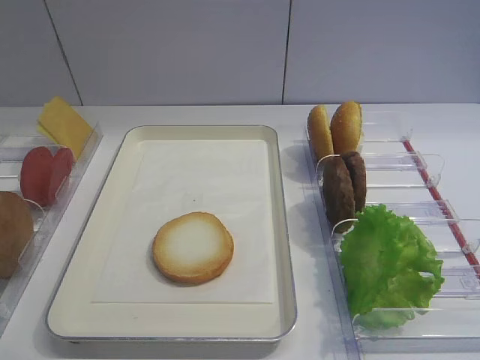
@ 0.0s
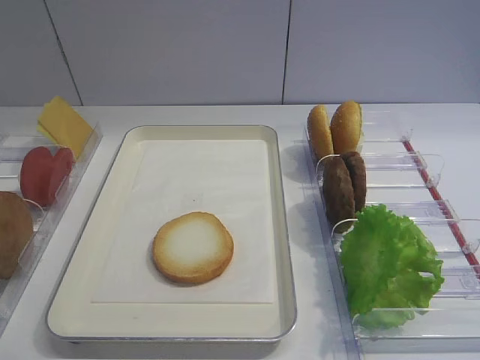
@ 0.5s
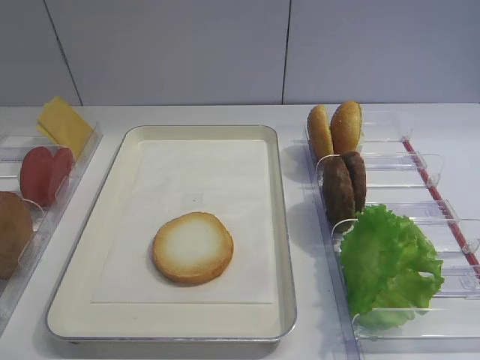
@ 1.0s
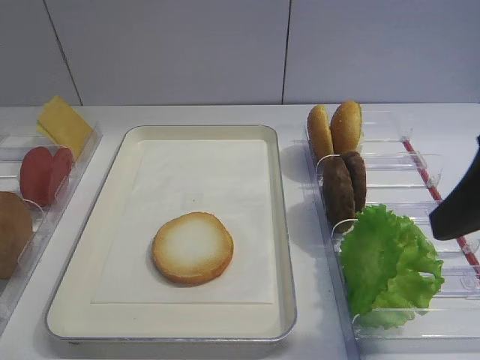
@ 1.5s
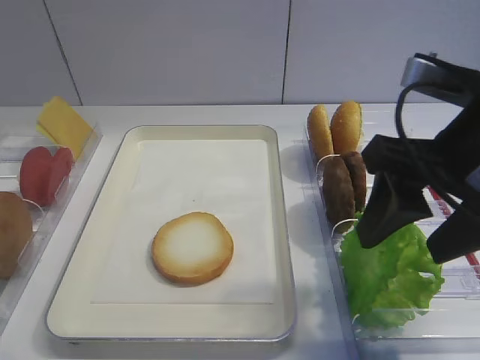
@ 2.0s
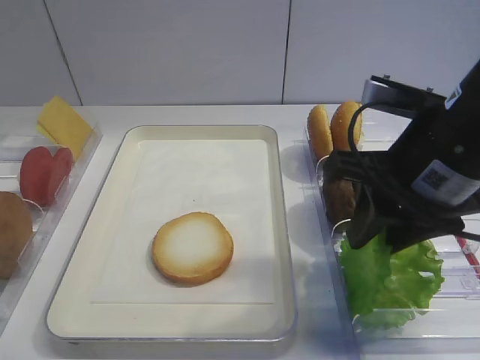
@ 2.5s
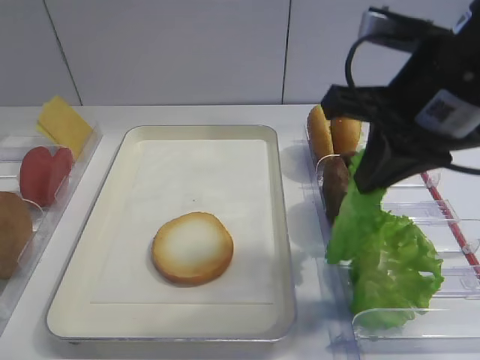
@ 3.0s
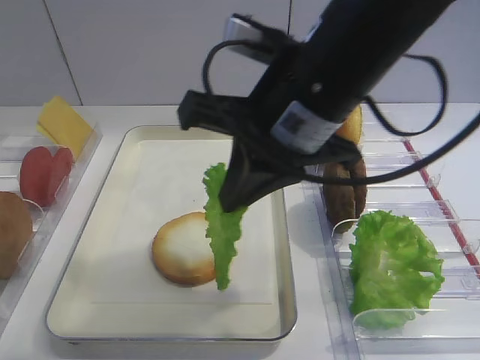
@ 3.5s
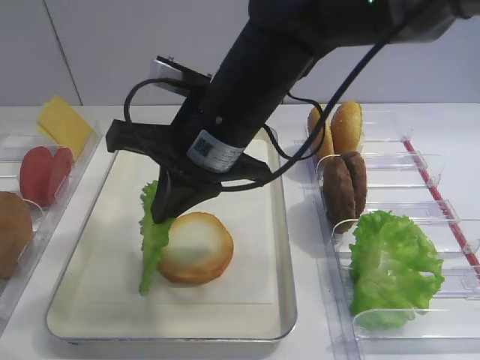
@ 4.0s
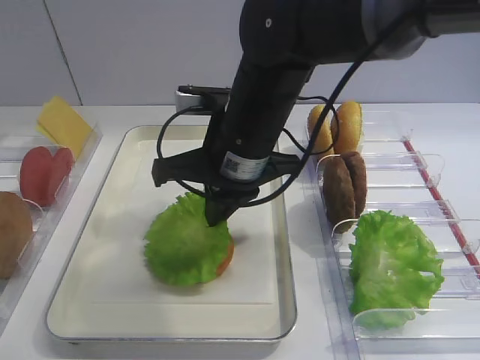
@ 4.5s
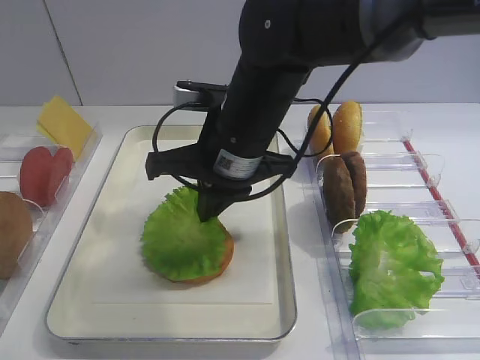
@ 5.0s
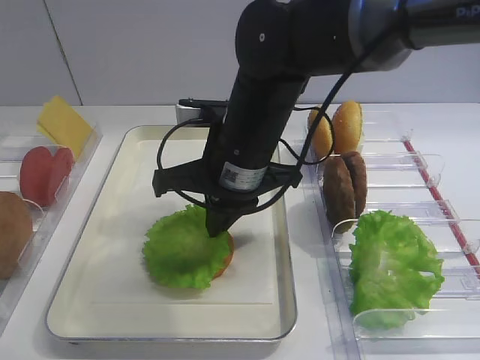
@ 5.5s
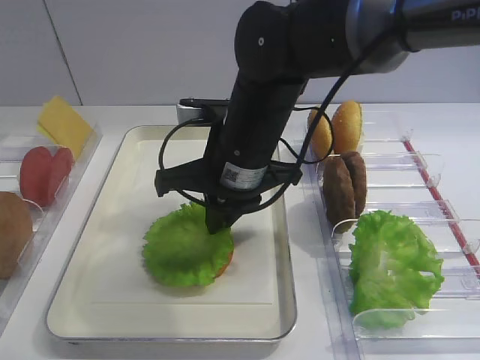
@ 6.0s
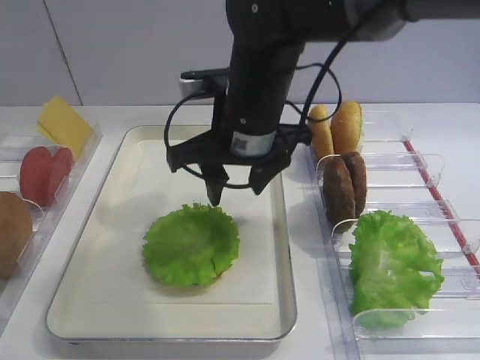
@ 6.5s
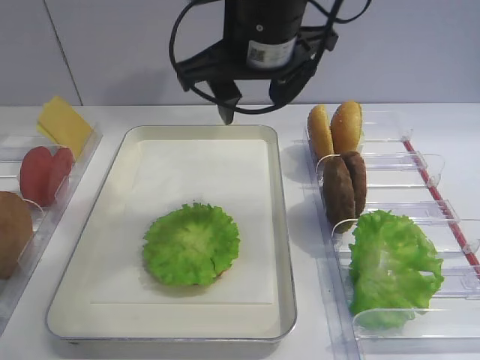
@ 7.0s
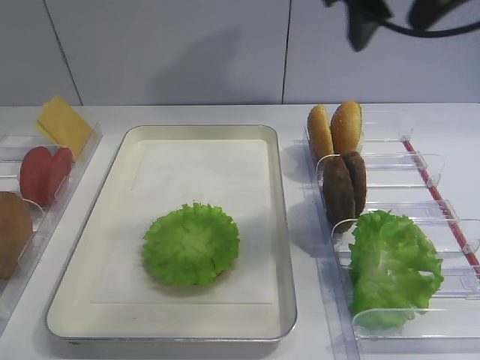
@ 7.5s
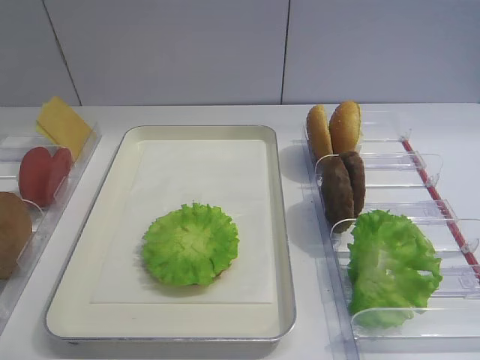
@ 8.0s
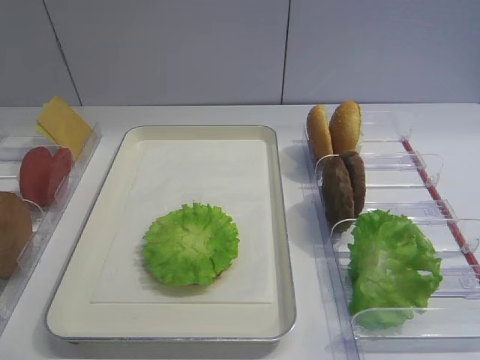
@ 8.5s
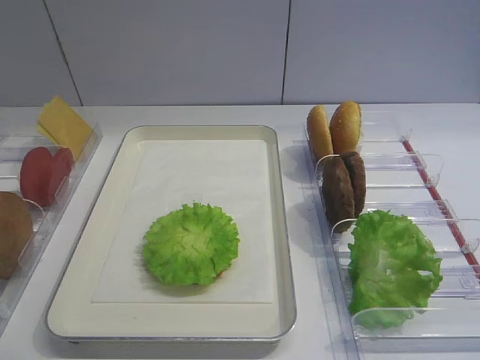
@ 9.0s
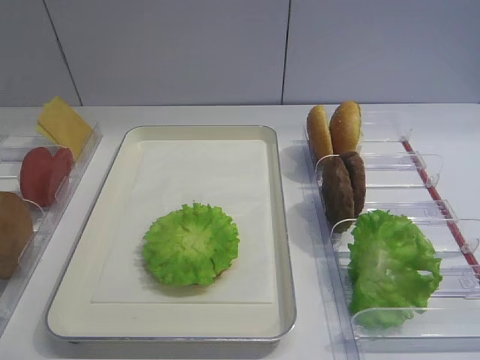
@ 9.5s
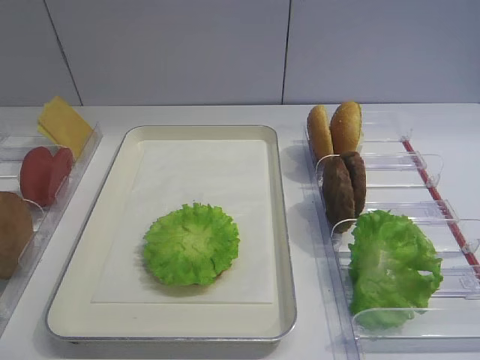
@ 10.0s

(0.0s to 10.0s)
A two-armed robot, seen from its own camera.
Step, 0.0s - 3.0s: Pick up the lettuce leaf with the right gripper.
Step, 3.5s - 6.0s: Place the lettuce leaf on the bread slice with the right gripper.
2.0s - 4.0s: The right gripper travels to the left and forward by roughly 20 cm, and closes its fingers.
4.0s - 6.0s: The right gripper moves roughly 5 cm.
6.0s - 8.0s: The right gripper travels to the right, upward and backward by about 35 cm, and opens up.
8.0s - 10.0s: The right gripper is displaced backward and downward by some 20 cm.

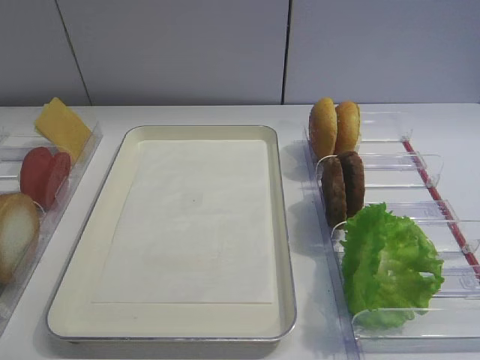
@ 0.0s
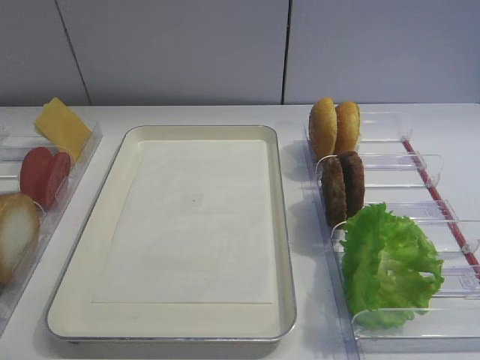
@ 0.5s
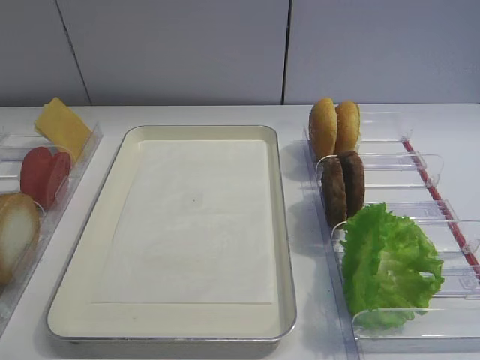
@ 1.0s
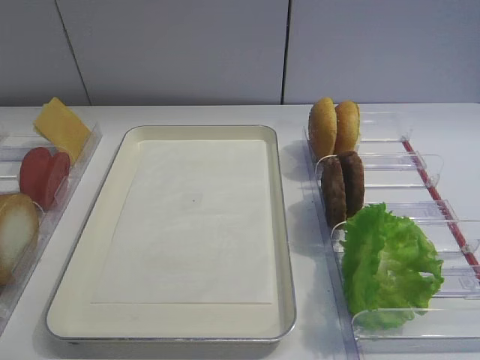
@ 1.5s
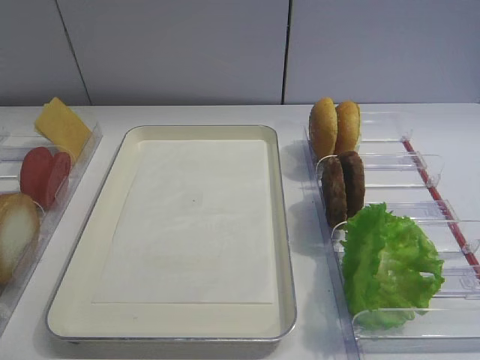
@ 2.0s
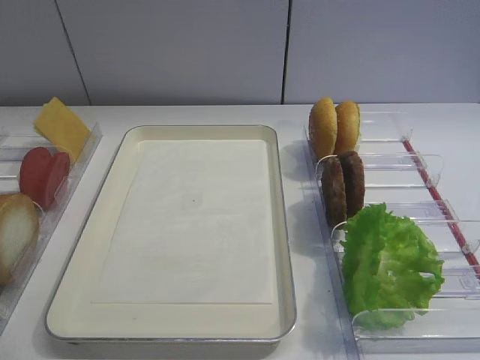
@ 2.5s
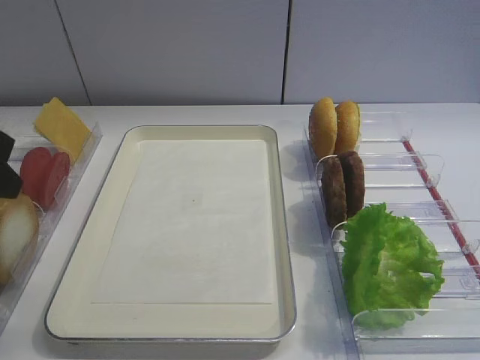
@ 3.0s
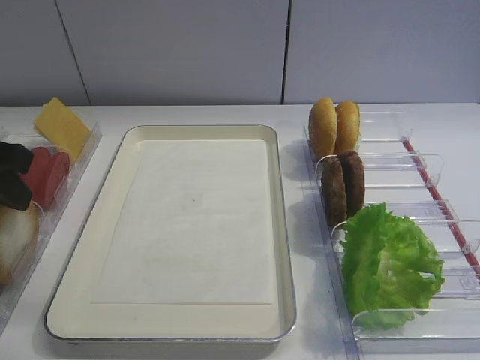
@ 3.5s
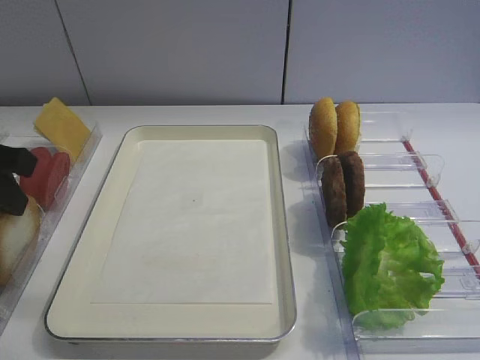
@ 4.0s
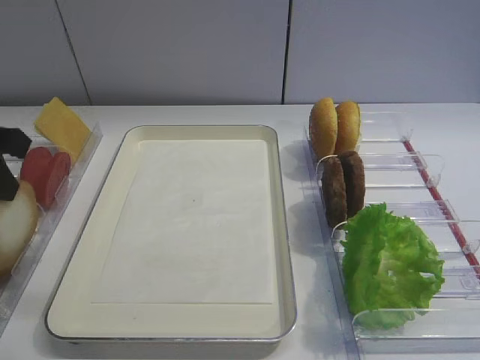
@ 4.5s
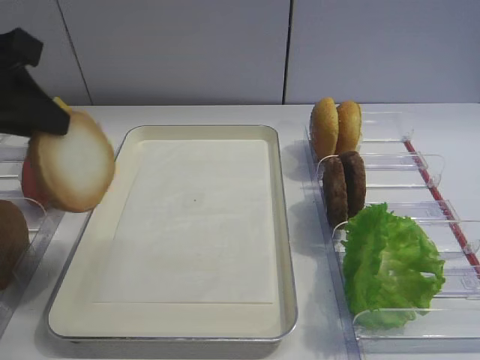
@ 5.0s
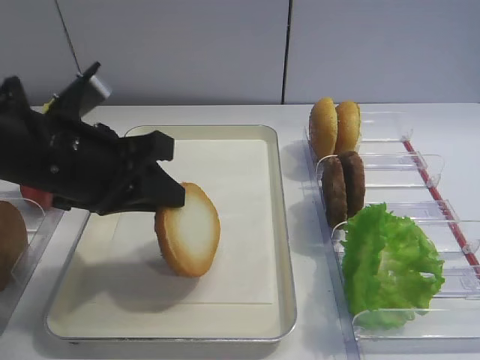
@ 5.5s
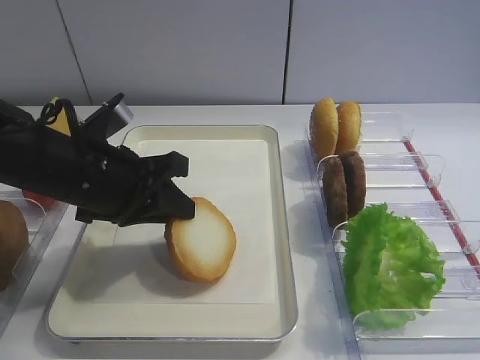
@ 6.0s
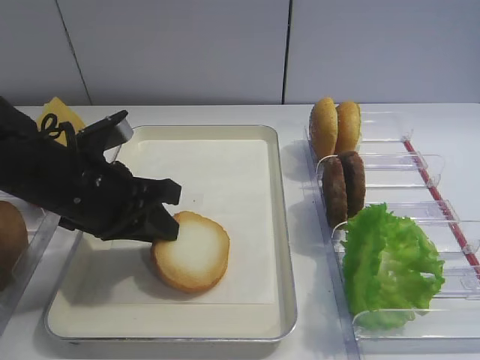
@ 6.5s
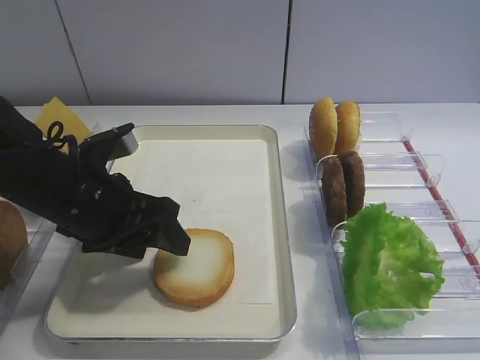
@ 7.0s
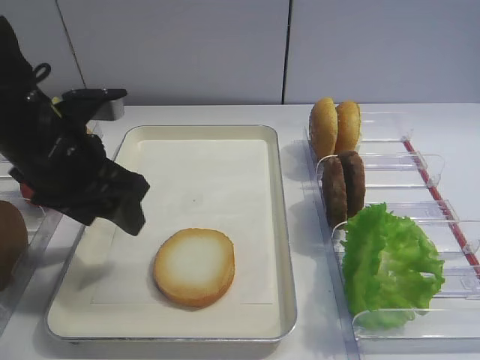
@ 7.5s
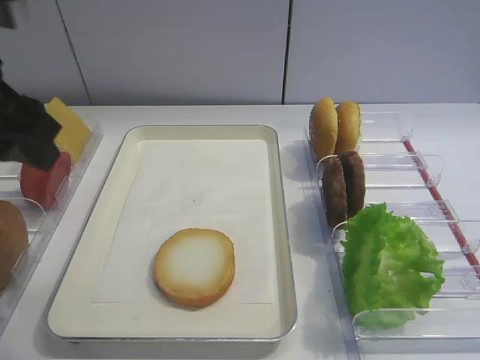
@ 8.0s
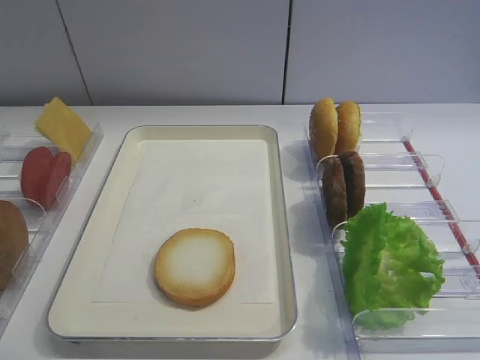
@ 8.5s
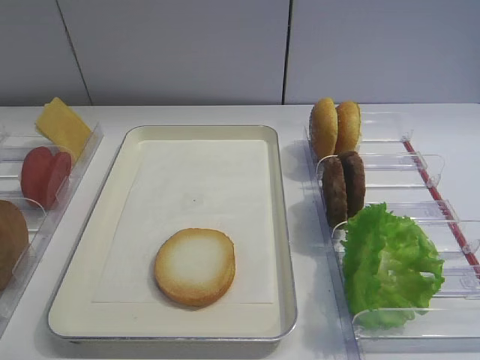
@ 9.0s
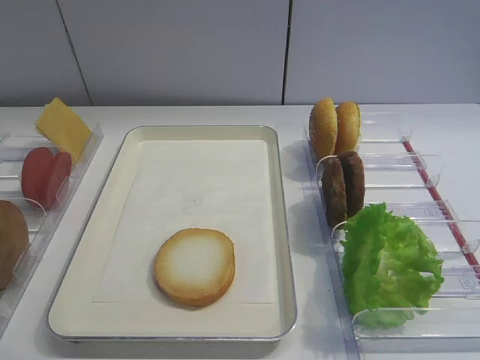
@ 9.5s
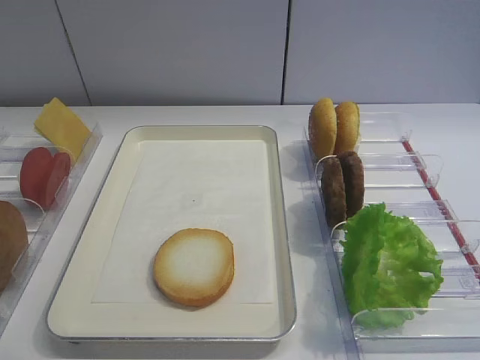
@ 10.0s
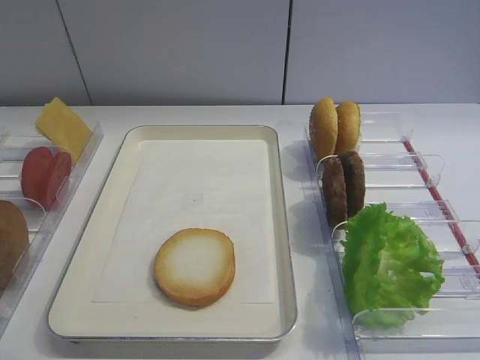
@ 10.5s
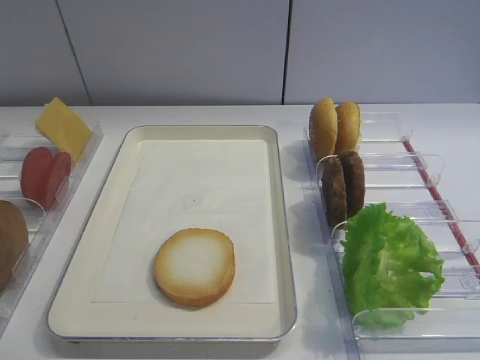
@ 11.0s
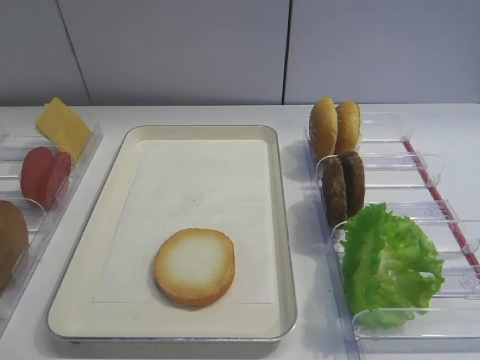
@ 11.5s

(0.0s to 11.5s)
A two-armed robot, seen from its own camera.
Step, 0.0s - 4.5s: Pick up the bread slice with the left gripper.
Step, 5.0s - 7.0s: Place the bread slice on the tray with the left gripper.
2.0s - 4.0s: The left gripper shifts approximately 15 cm forward, and closes.
4.0s - 6.0s: The left gripper goes approximately 15 cm to the right and downward.
6.0s - 7.5s: The left gripper shifts about 5 cm upward, and opens up.
7.5s - 9.5s: The left gripper heads backward and to the left, covering roughly 30 cm.

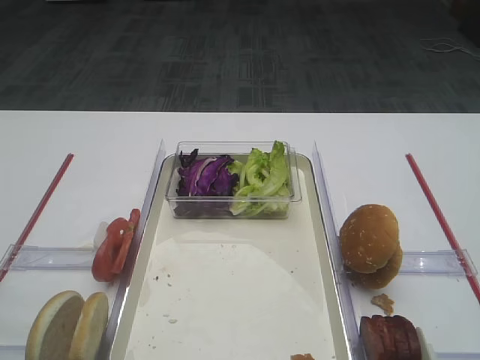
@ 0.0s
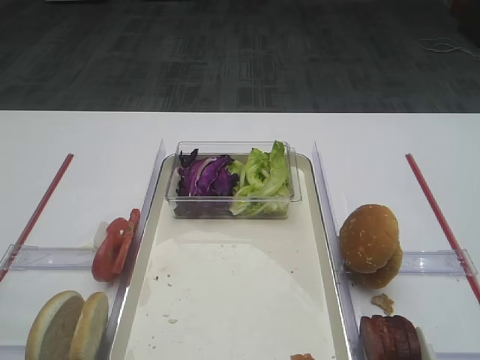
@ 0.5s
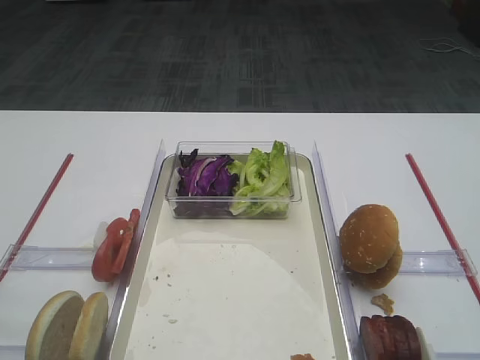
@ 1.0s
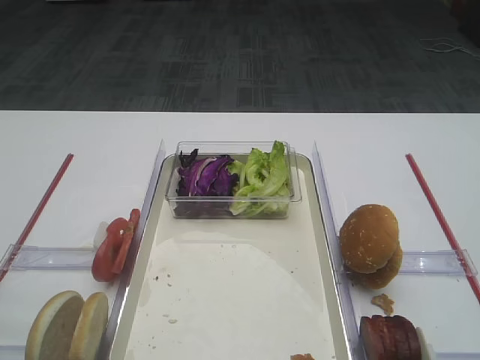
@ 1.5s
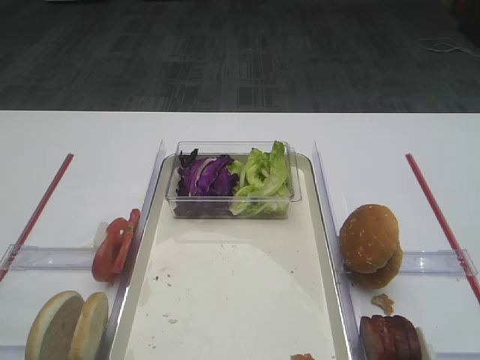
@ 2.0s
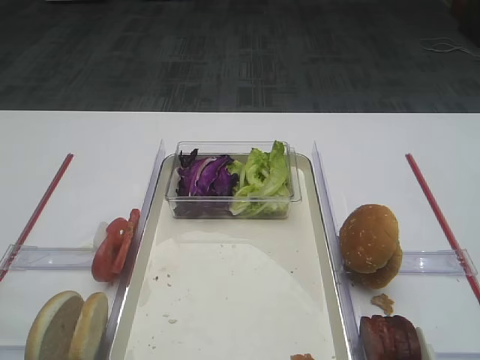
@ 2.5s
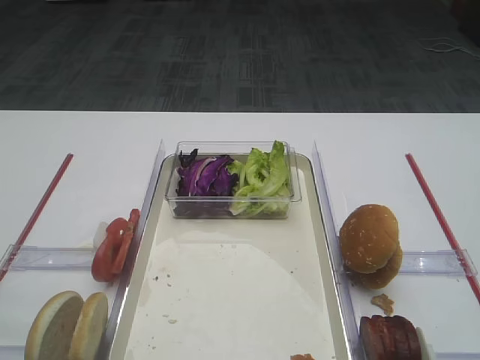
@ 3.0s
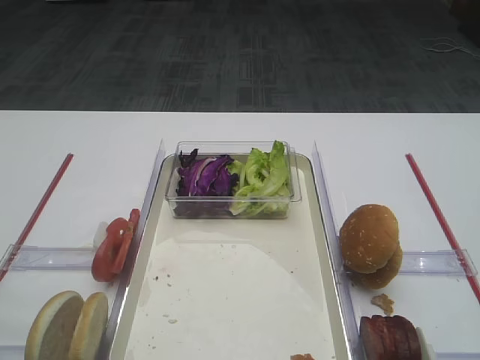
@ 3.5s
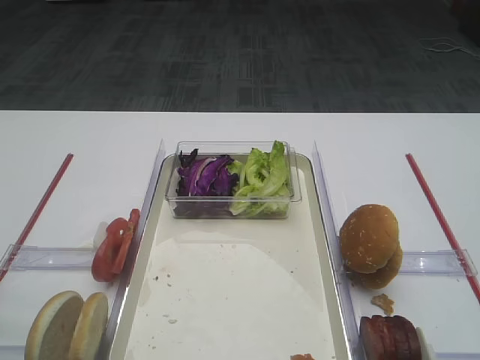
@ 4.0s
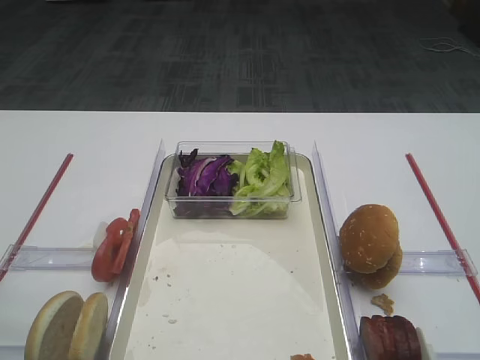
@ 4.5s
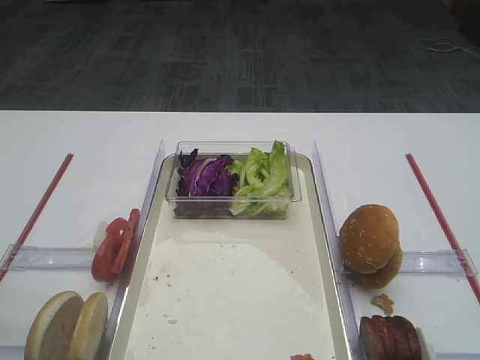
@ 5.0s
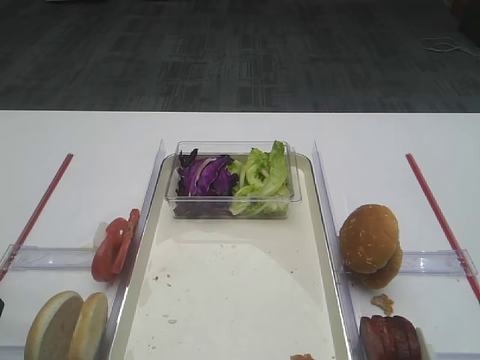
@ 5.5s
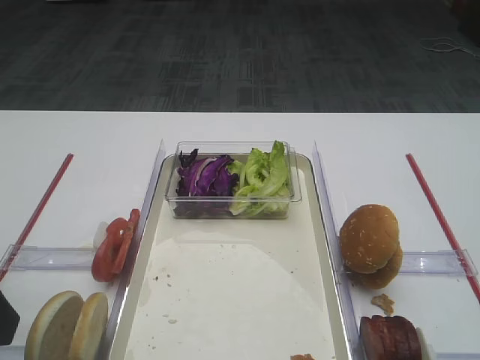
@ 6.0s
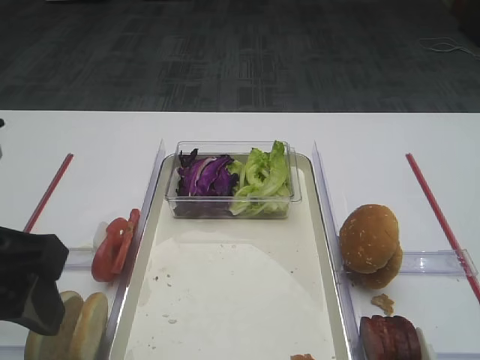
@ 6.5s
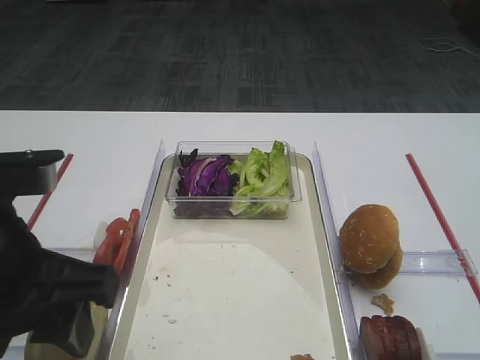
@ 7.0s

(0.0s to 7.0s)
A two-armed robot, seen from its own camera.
5.0s - 7.0s: The left gripper heads to the right, covering roughly 10 cm.
